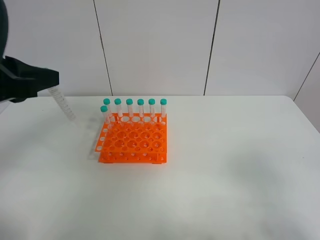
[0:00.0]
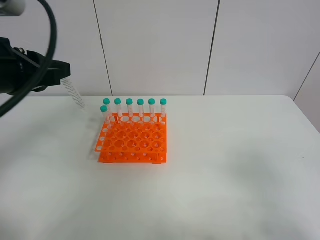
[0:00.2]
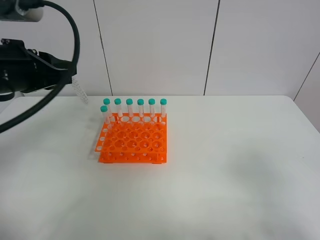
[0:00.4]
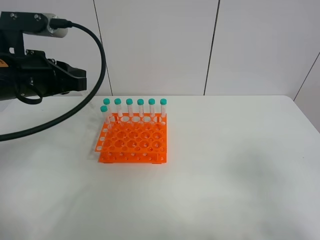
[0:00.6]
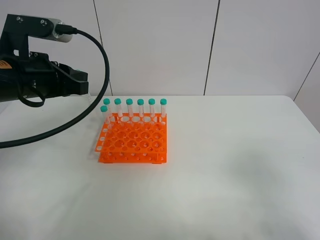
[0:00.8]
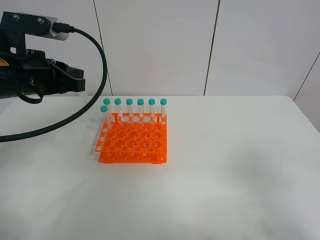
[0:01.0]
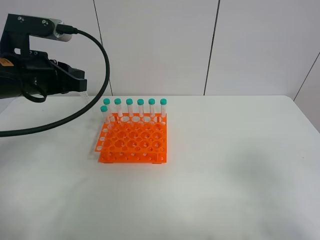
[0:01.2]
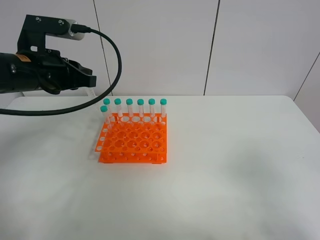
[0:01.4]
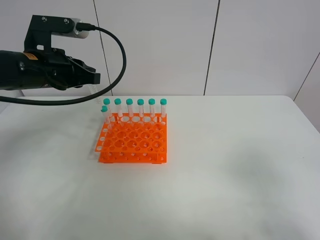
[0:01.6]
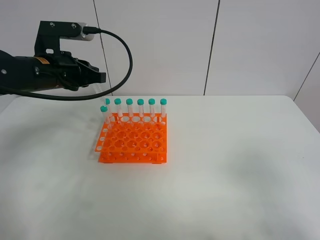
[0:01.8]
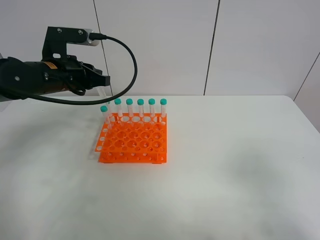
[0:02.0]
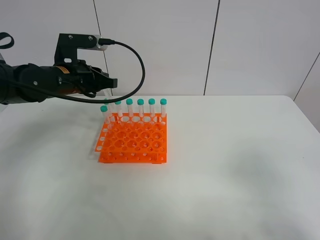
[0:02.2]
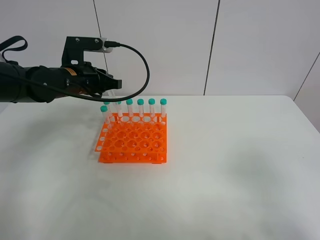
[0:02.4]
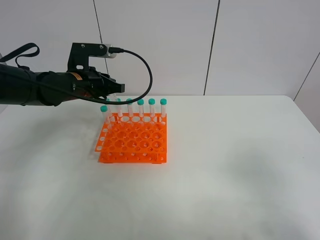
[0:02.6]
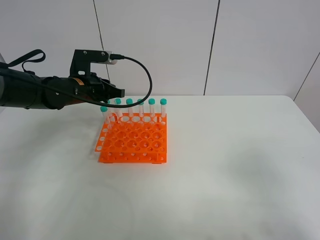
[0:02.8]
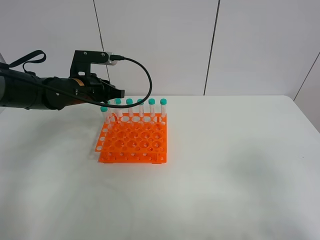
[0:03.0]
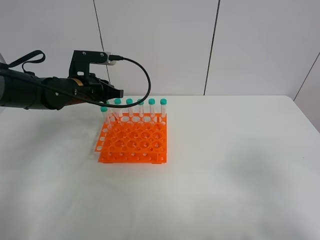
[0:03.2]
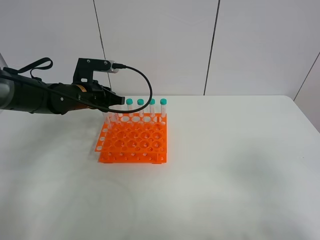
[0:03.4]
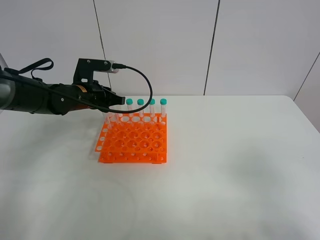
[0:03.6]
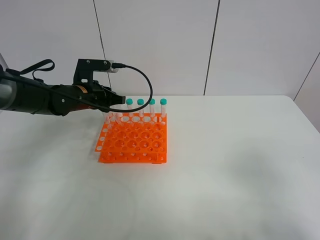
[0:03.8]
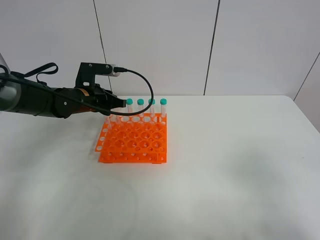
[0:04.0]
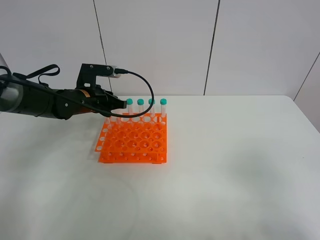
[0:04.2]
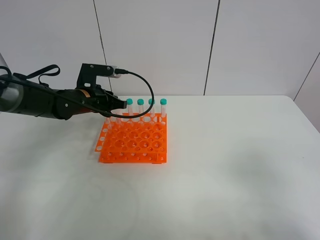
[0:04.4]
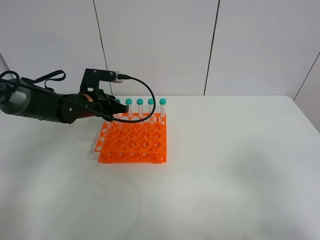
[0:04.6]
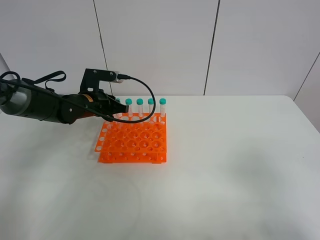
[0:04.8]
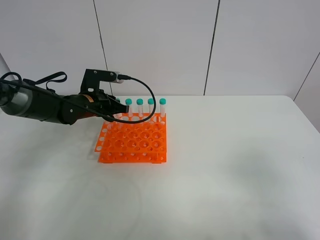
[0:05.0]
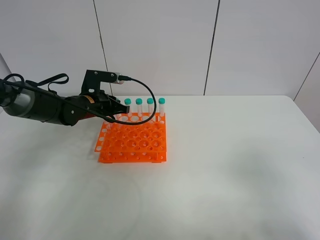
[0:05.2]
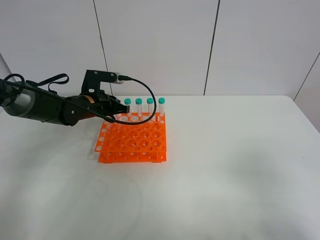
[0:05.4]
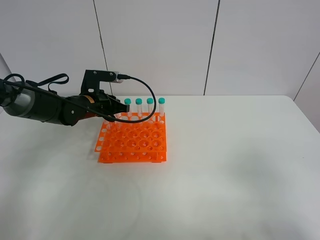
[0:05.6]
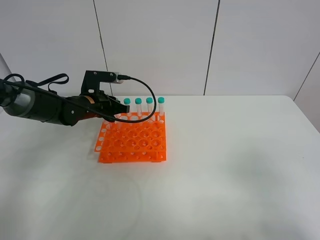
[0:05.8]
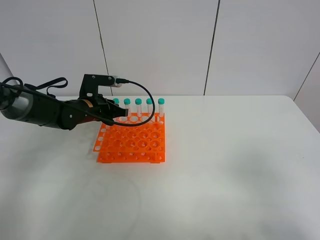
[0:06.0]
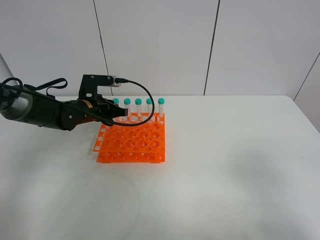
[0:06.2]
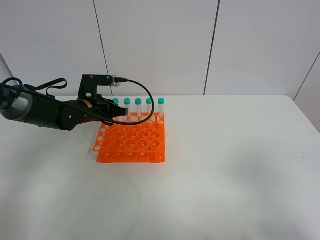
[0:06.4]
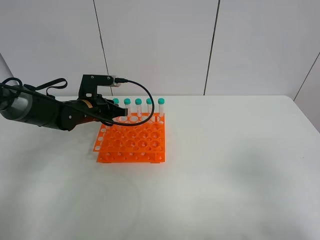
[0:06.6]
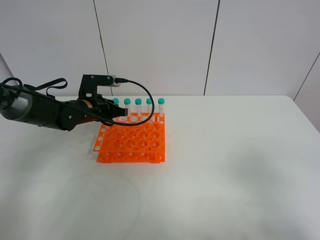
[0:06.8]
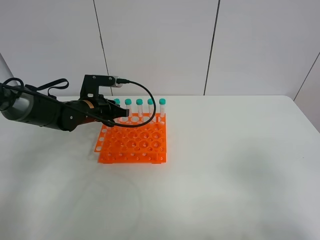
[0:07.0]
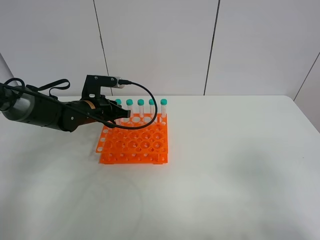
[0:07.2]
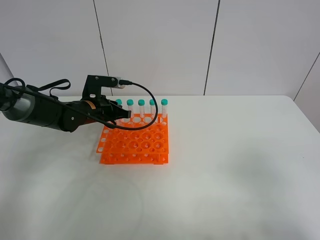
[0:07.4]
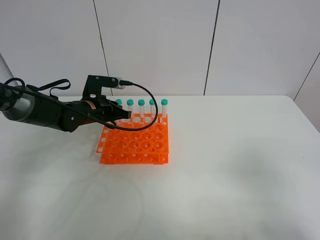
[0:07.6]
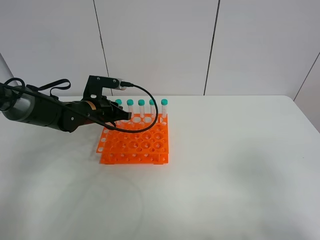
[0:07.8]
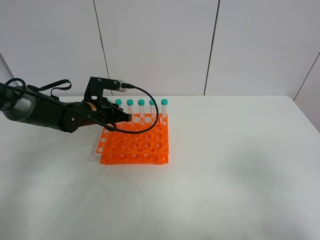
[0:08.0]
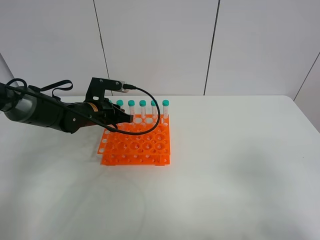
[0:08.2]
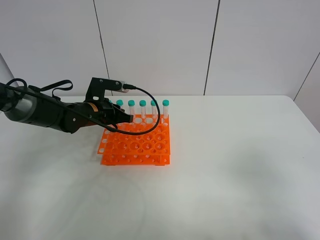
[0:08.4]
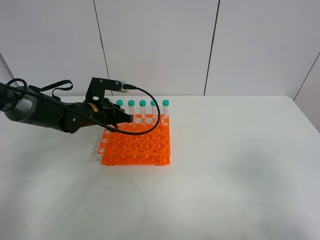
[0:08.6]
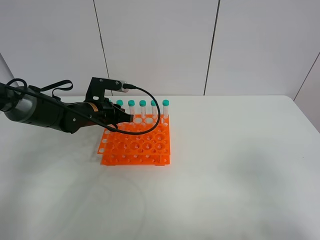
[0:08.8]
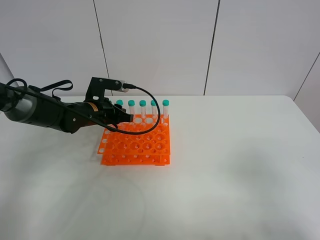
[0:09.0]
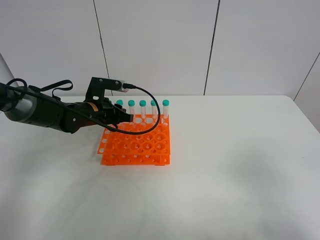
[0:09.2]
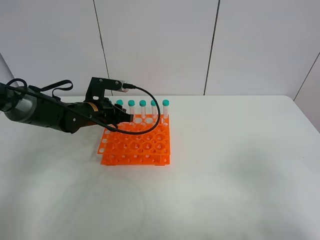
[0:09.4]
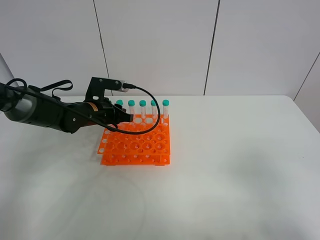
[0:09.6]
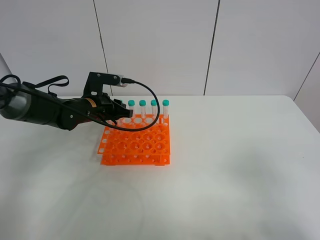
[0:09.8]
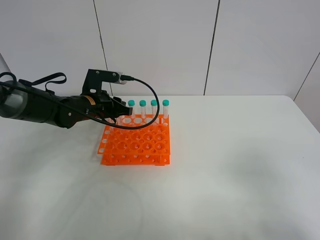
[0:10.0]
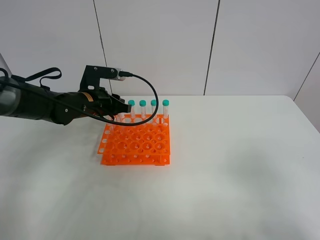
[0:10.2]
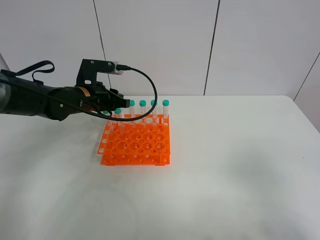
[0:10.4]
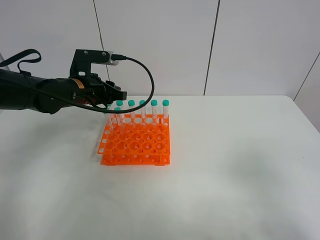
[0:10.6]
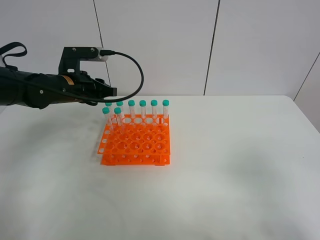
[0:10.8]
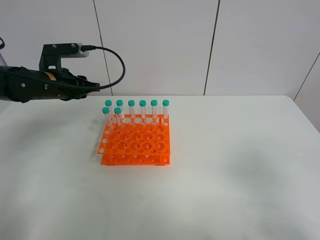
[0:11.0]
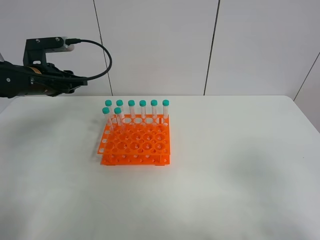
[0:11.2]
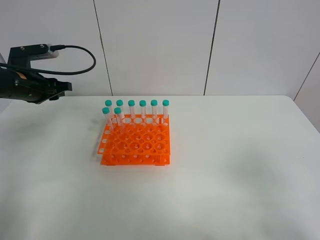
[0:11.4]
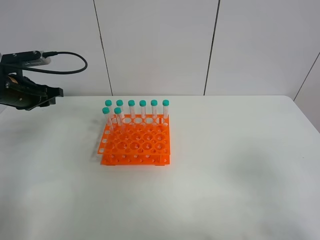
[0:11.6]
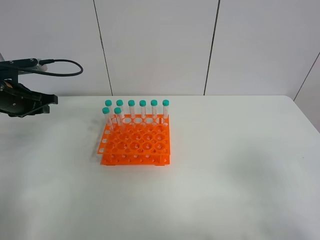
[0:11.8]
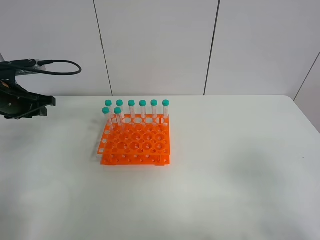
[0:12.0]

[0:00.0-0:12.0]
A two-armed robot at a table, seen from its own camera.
Task of the whole recording: Put the test tube on the table back onto the test tube rack.
Step, 0:00.0 to 0:10.8: Place the test tube on the test tube rack with the left gripper.
0:00.0 to 0:01.6: The left gripper moves forward and downward, some 15 cm.
0:01.6 to 0:03.0: The left gripper moves downward and forward, some 10 cm.
0:03.0 to 0:06.0: The grippers move only a little.
0:06.0 to 0:07.6: Neither gripper changes place.
0:07.6 to 0:09.0: Both grippers stay put.
0:09.0 to 0:10.4: The left gripper moves upward, some 5 cm.
0:10.4 to 0:12.0: The left gripper goes some 15 cm to the left.

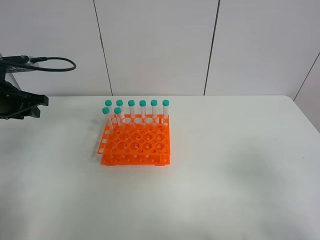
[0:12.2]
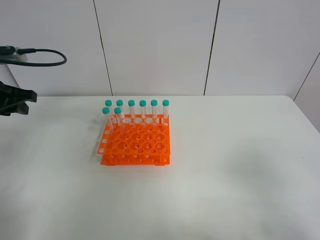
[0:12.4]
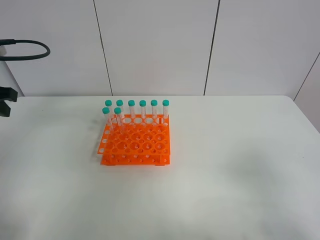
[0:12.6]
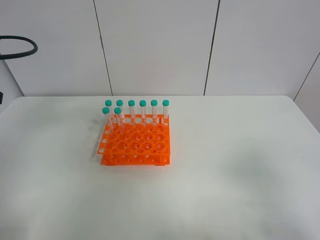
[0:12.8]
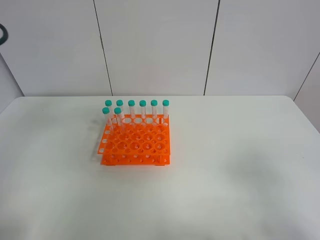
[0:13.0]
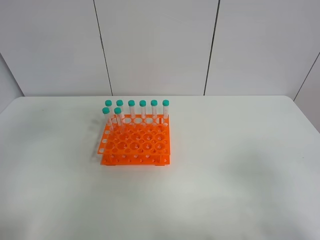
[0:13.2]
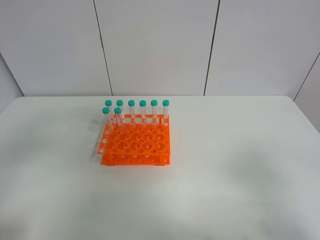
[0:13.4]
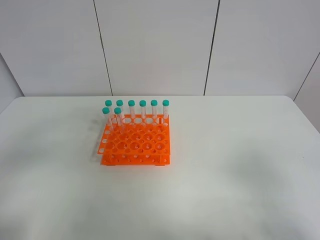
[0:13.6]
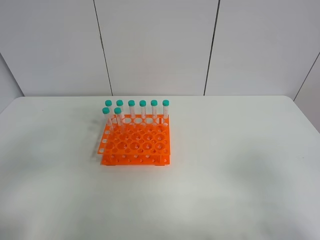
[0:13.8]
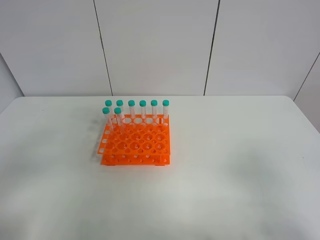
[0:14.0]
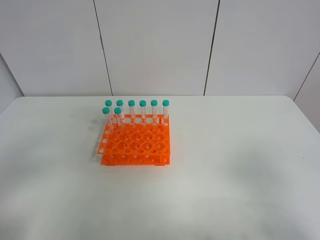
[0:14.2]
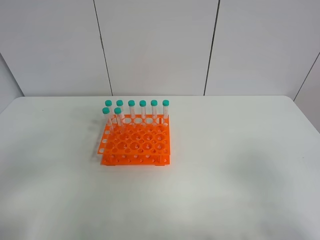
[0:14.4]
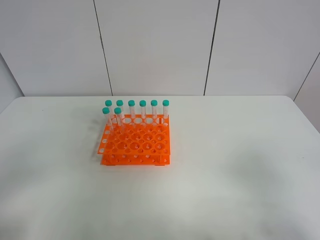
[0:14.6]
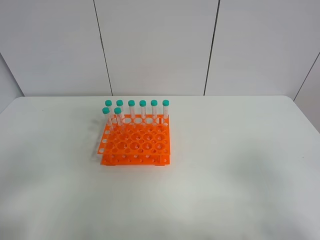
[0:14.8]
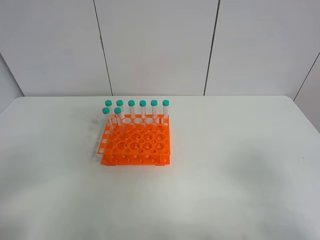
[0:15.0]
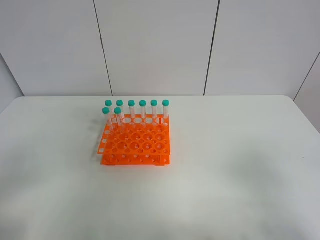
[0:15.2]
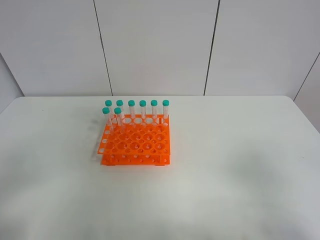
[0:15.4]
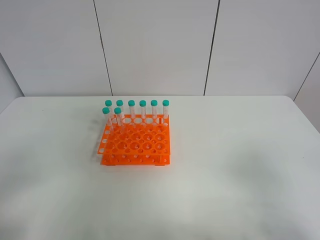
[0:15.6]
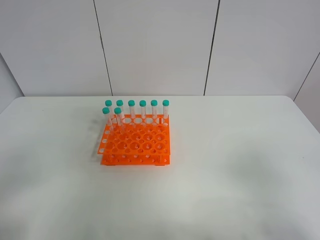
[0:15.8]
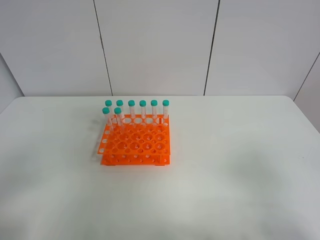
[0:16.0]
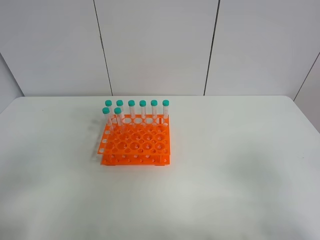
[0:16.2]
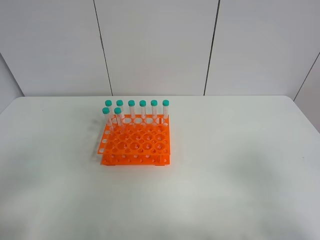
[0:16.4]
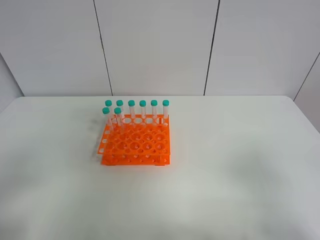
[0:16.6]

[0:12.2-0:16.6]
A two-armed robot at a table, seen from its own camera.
Task of the whole recording: Put the test tube on the table back onto the test tube rack.
0:12.2 to 0:13.6: The left gripper travels backward by some 25 cm.

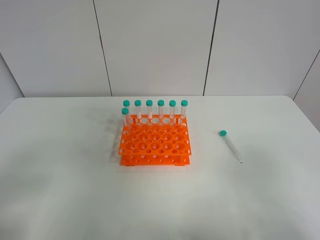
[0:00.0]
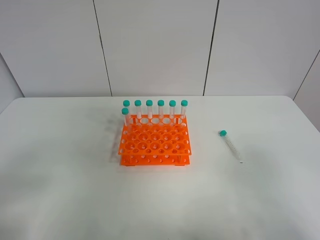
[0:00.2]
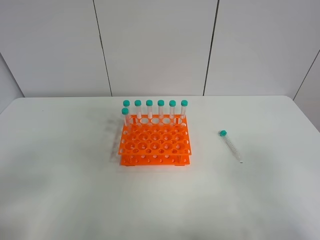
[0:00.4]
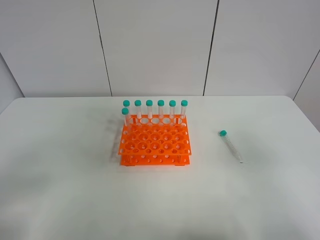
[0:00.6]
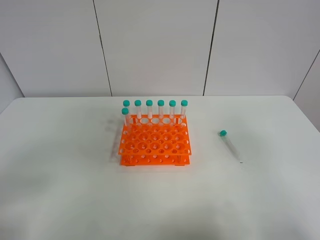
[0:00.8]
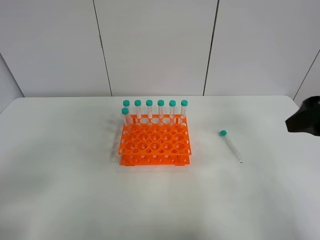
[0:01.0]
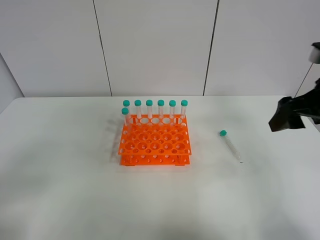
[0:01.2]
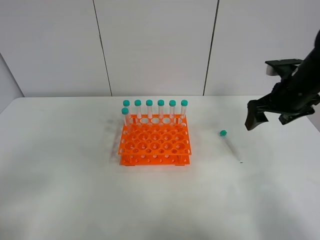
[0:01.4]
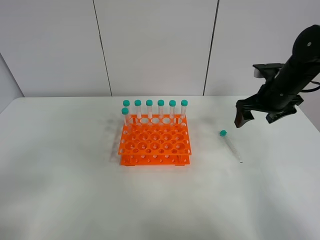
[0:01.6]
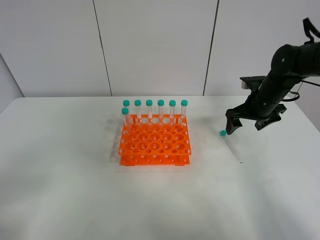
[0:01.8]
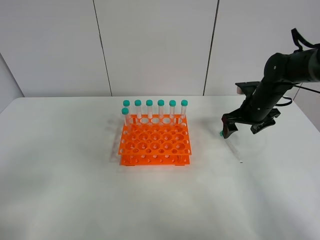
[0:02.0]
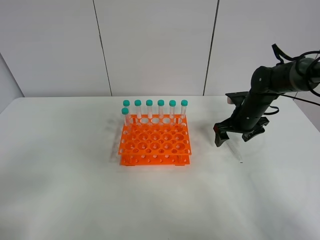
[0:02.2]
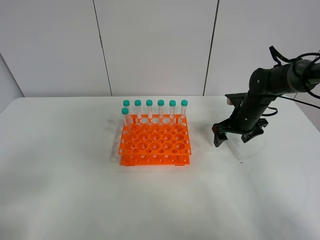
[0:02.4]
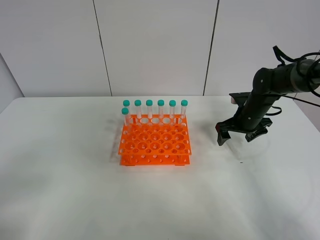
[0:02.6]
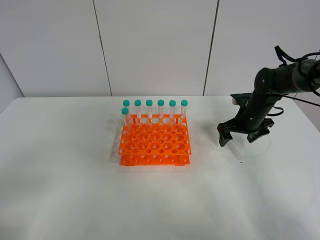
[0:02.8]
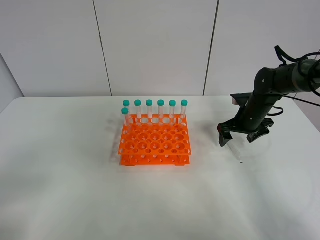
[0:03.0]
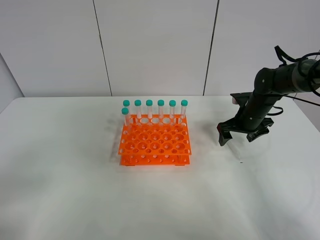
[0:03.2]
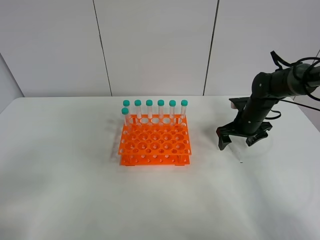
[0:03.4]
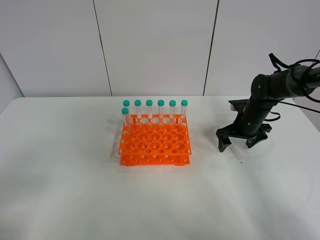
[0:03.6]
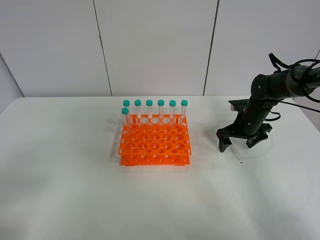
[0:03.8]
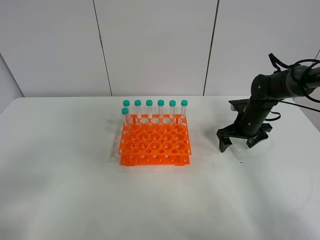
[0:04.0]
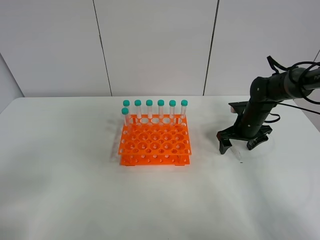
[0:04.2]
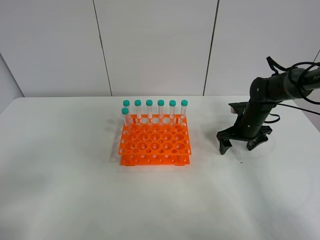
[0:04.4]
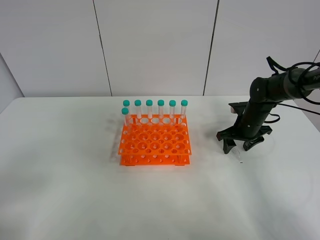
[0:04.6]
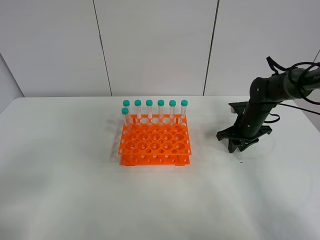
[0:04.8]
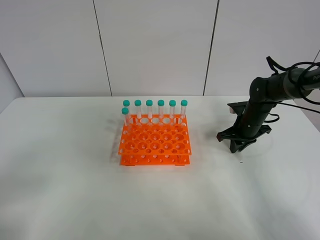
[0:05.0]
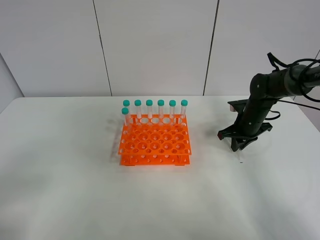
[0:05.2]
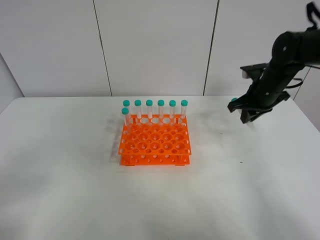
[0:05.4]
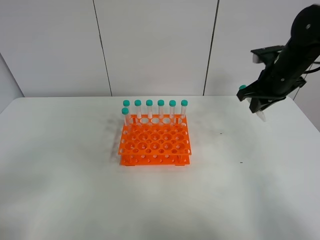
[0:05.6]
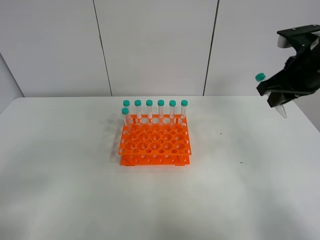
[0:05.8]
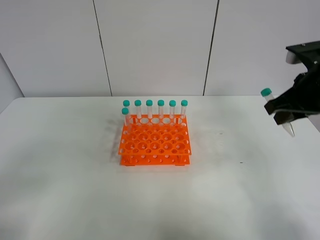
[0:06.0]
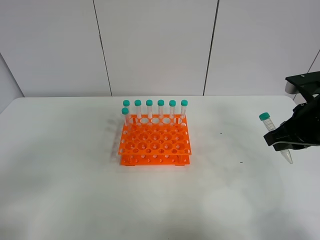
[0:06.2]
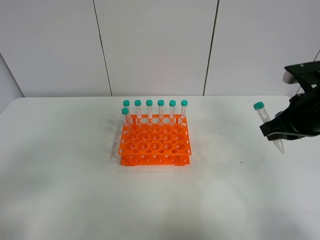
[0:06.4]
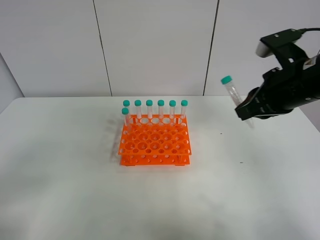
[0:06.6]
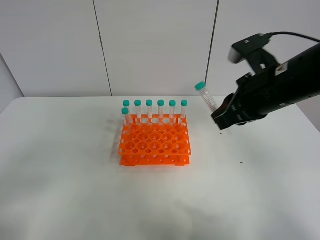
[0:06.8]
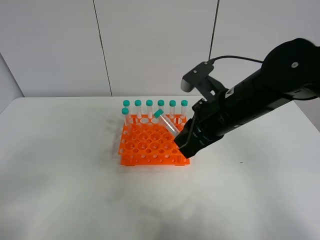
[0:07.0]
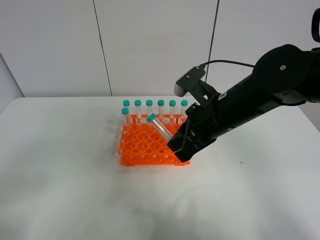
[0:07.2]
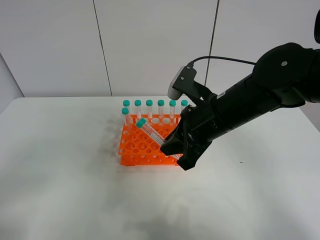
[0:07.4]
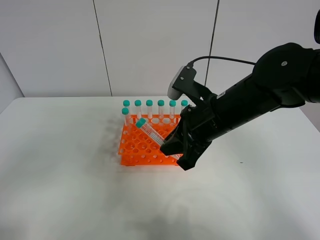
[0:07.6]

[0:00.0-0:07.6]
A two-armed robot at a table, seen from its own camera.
Task of the whole recording: Put the test tube on the table back onto the test tube rack.
Step, 0:00.0 to 0:04.8: Pick up the test tube with the right gripper.
0:00.0 to 0:01.6: The right gripper heads forward, covering about 35 cm.
0:01.6 to 0:03.0: The right gripper moves downward, about 10 cm.
0:03.0 to 0:04.6: The grippers make only small movements.
0:04.6 to 0:06.0: The right gripper goes approximately 25 cm upward and backward, and closes.
0:06.0 to 0:07.6: The right gripper travels to the left by approximately 15 cm.
